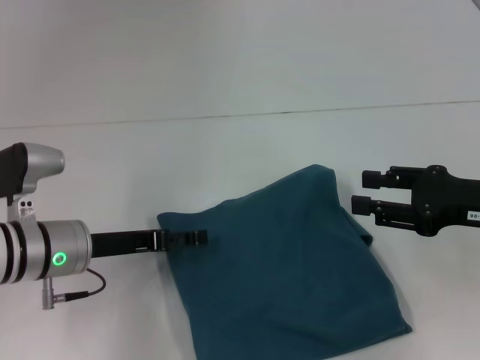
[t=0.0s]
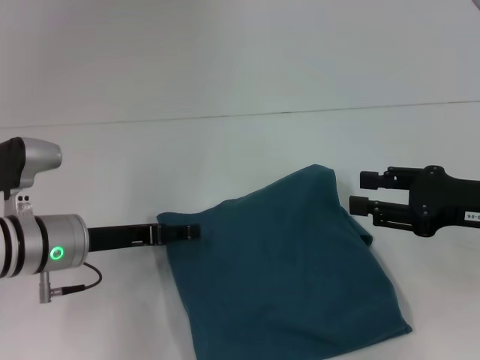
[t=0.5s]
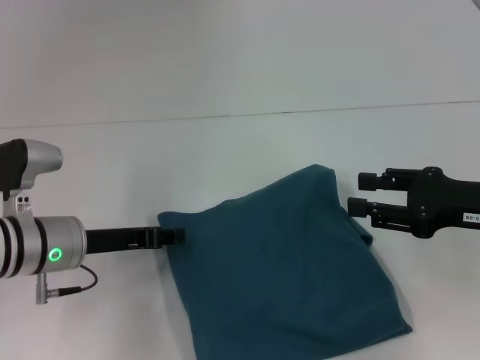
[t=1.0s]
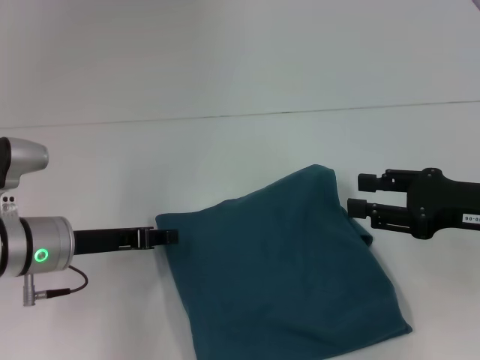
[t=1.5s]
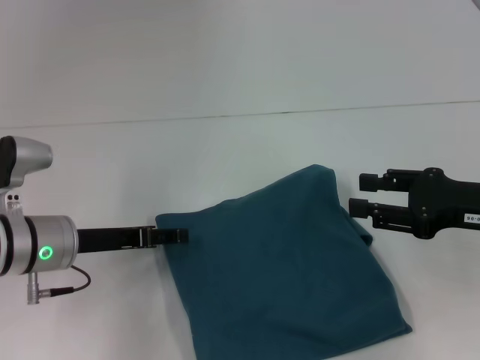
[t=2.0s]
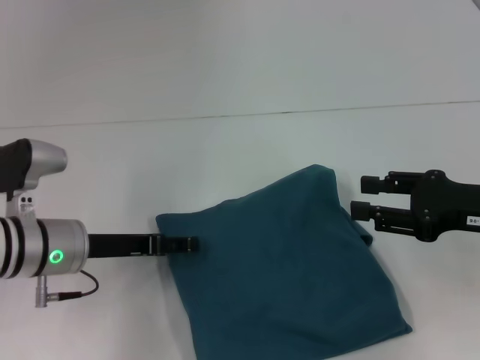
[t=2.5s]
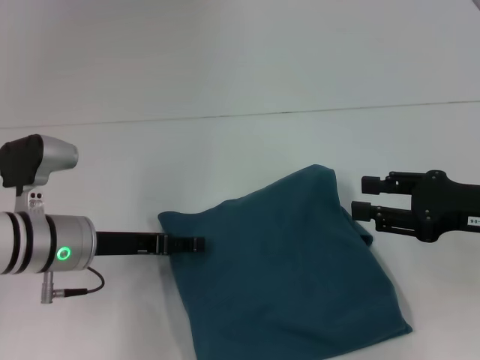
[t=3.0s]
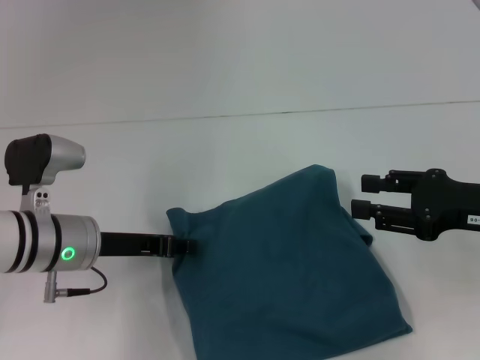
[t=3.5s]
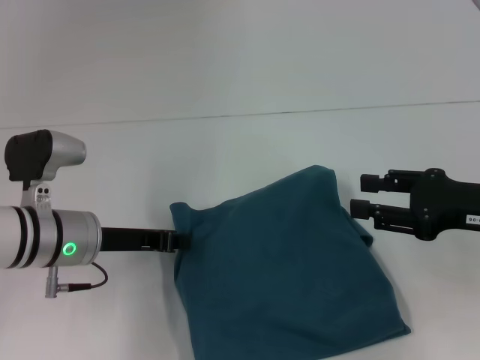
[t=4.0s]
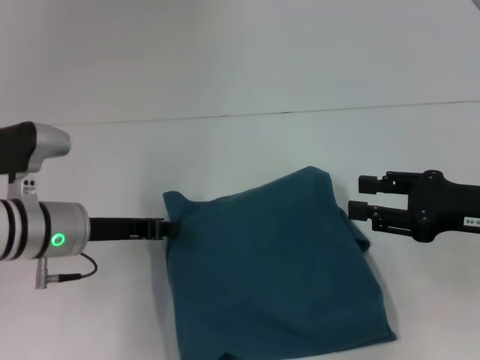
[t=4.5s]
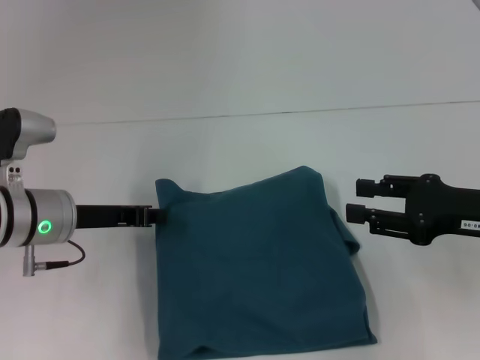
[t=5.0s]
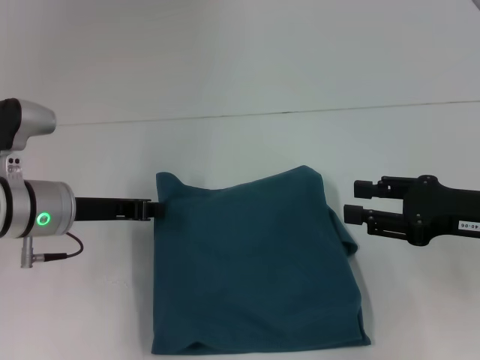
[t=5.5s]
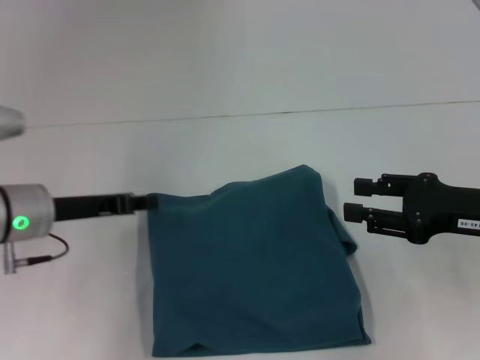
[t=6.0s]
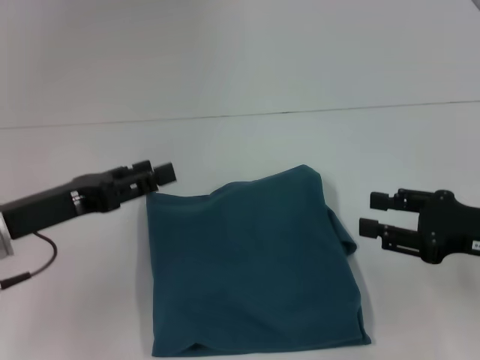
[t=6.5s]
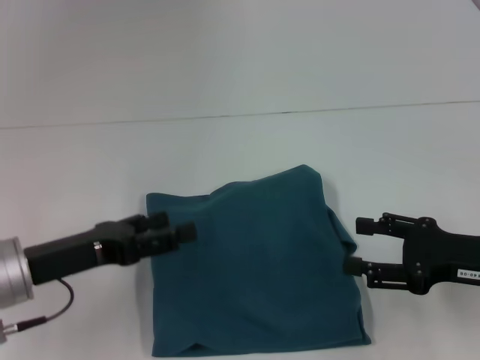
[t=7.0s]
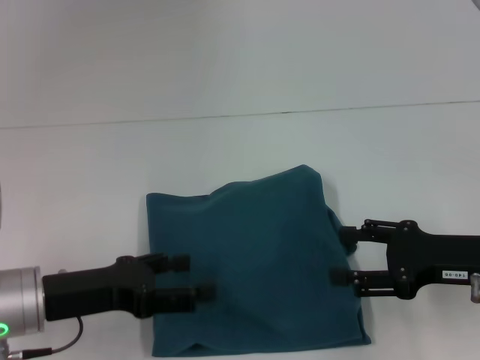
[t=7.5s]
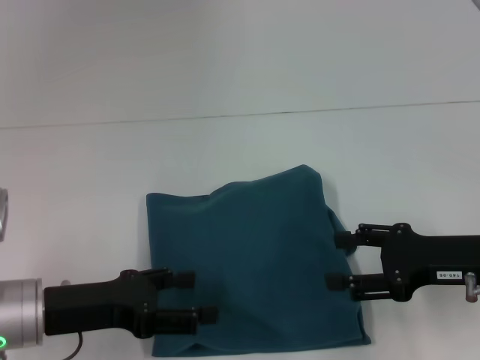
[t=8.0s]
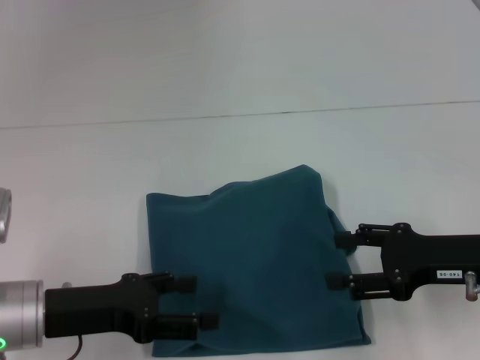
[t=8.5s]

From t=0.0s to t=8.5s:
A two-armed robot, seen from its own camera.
From t=0.0s to t=2.0s: The left gripper closes its fingers.
From t=2.0s to t=4.0s: The left gripper closes up.
From t=4.0s to t=6.5s: The left gripper moves to the left, approximately 5 cm, and opens up.
From t=6.5s to t=8.5s: The left gripper shifts by roughly 5 cm, and opens.

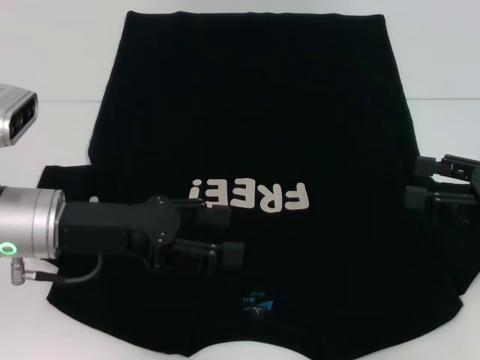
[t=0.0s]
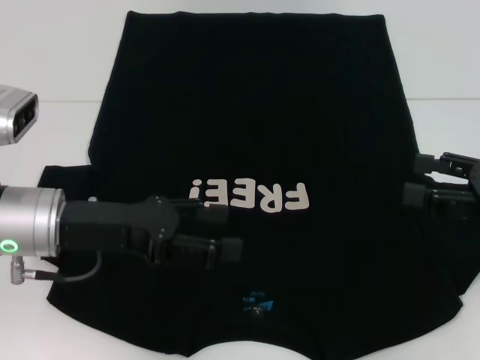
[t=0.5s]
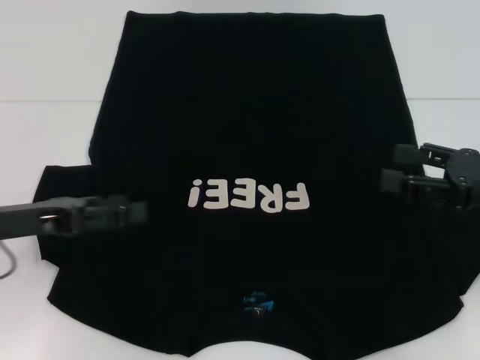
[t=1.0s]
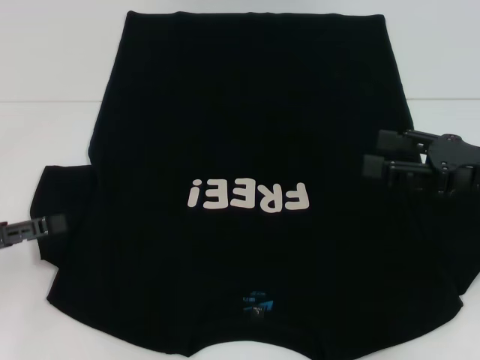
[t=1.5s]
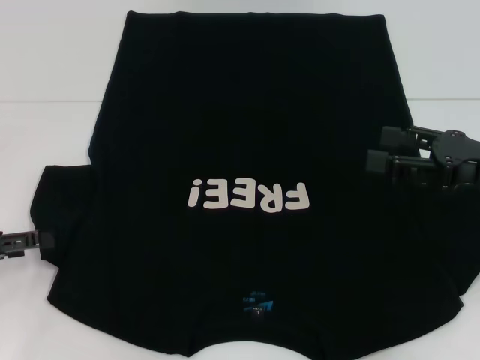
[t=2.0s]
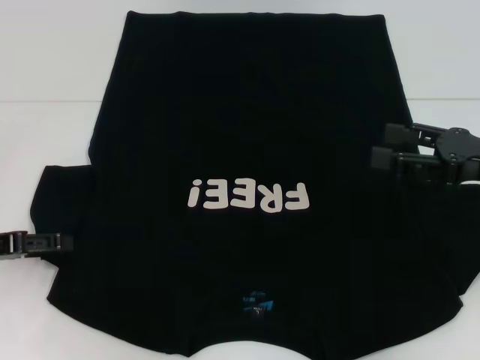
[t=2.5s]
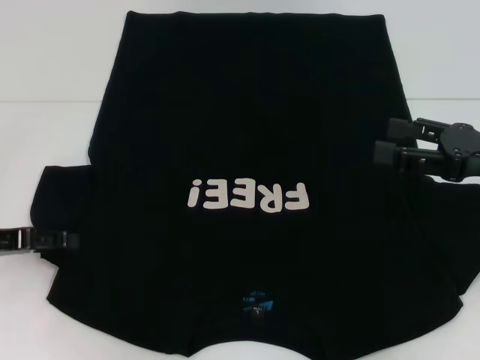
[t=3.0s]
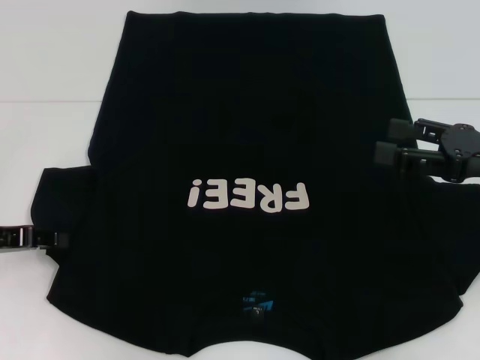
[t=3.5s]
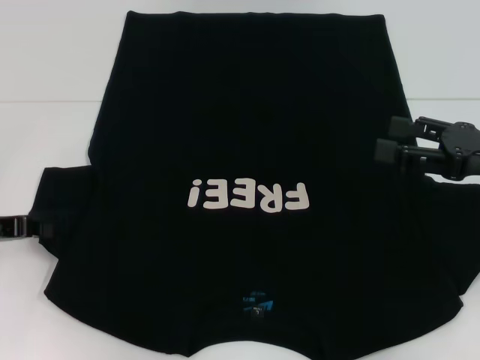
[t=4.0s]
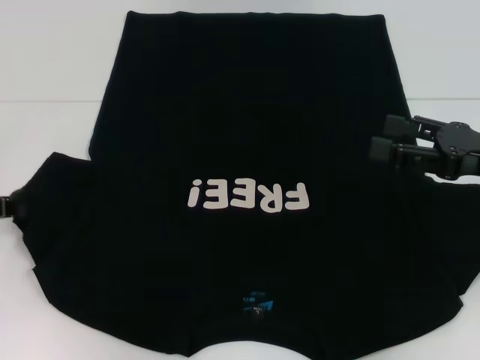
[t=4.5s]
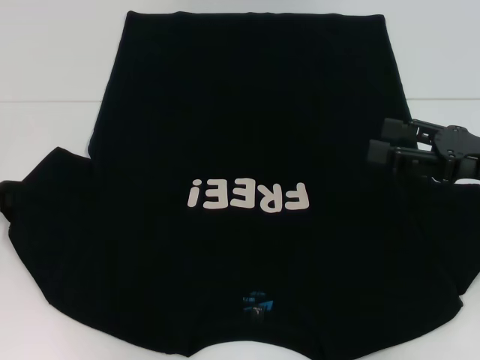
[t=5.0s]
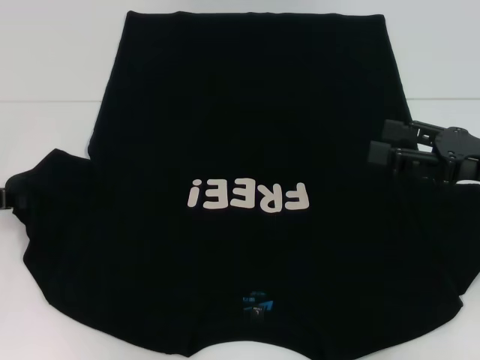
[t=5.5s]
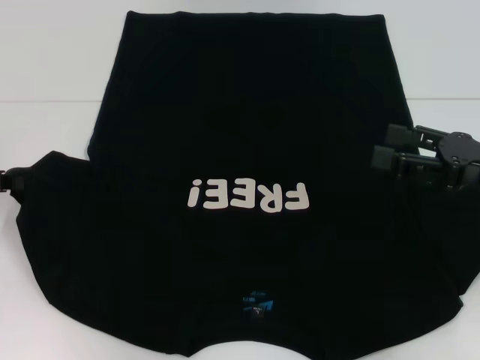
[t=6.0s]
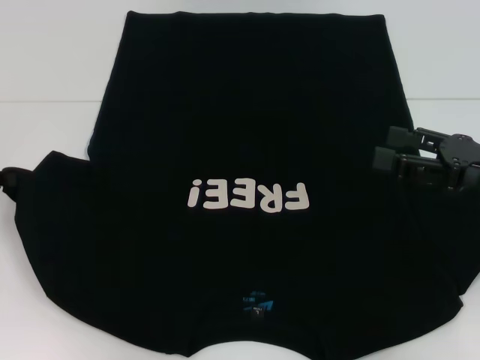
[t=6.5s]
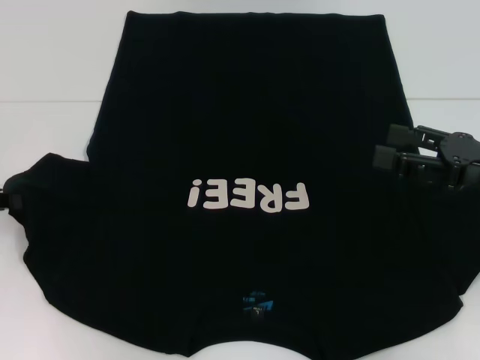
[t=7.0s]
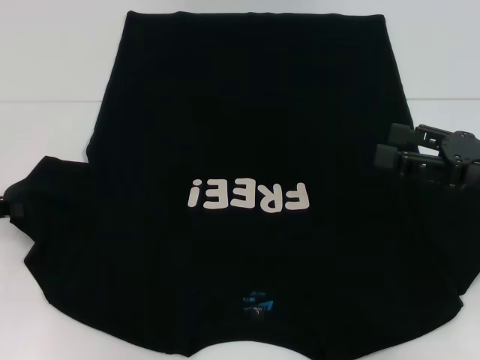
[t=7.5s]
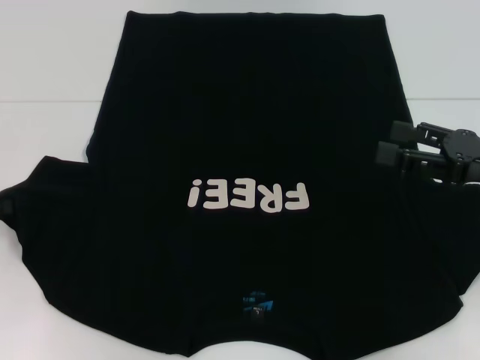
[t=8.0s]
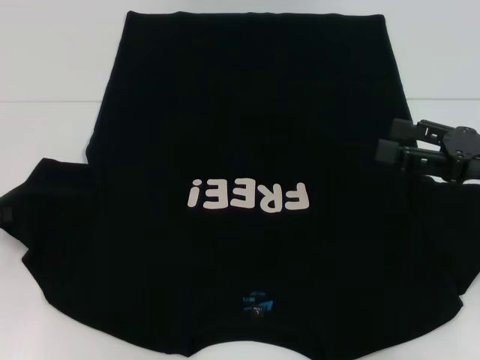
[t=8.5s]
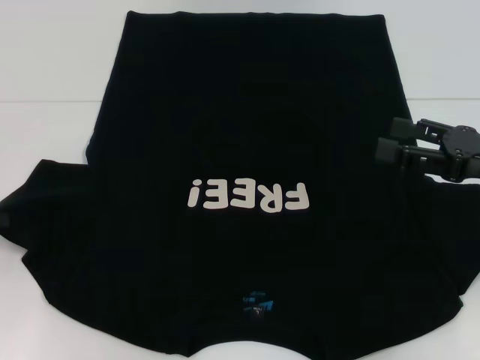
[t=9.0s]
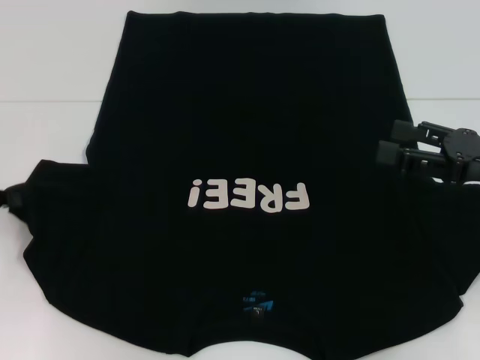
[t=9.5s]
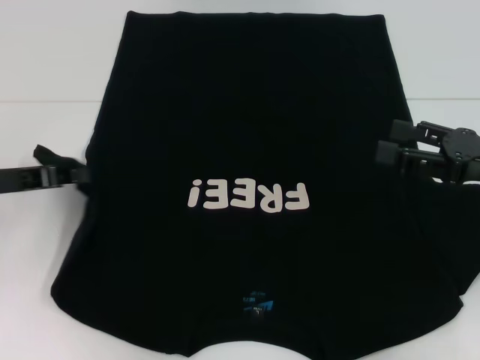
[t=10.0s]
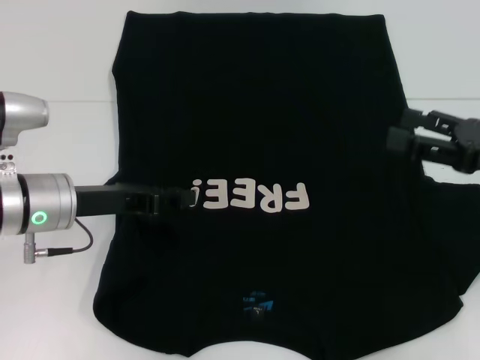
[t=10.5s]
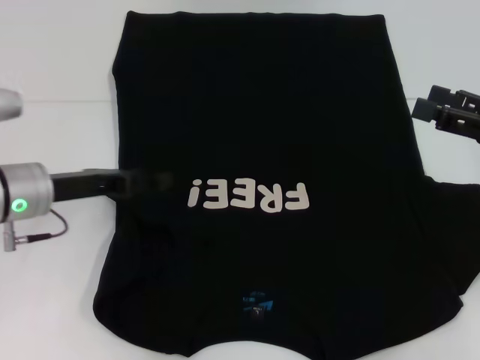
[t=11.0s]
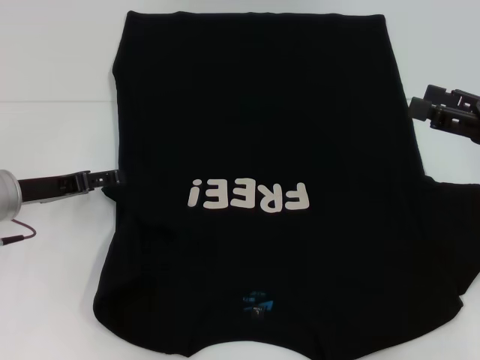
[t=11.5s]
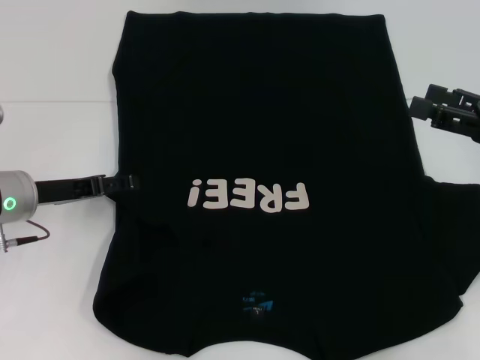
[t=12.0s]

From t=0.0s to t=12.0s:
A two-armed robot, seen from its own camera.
From t=0.0s to t=2.0s: The left gripper travels to the left by approximately 15 cm.
From t=2.0s to t=4.0s: The left gripper shifts by some 5 cm, and closes up.
From t=4.0s to t=8.0s: The grippers make only small movements.
From t=8.0s to t=10.0s: The left gripper travels to the right by roughly 5 cm.
From t=10.0s to t=12.0s: The left gripper is displaced downward by approximately 5 cm, and opens up.

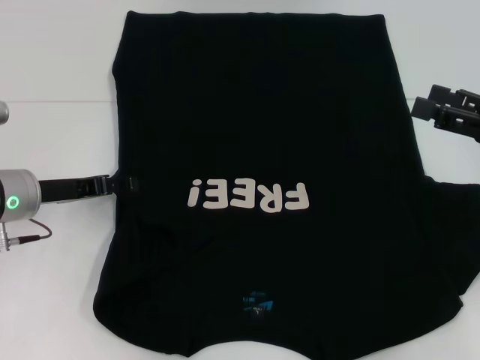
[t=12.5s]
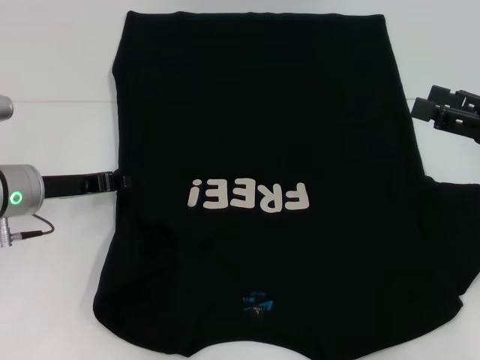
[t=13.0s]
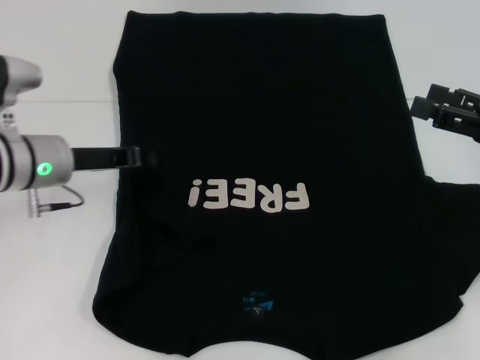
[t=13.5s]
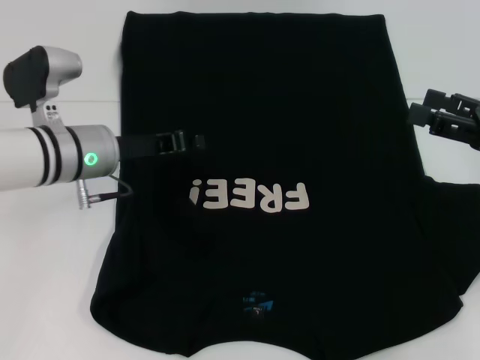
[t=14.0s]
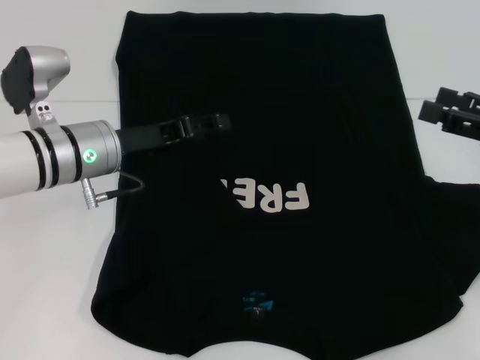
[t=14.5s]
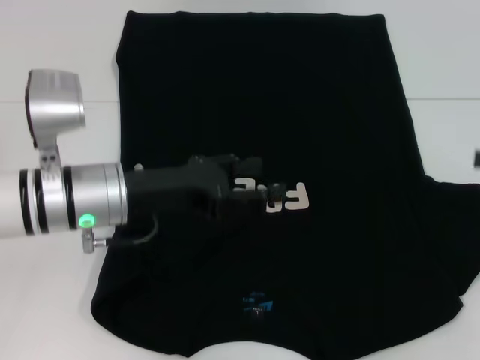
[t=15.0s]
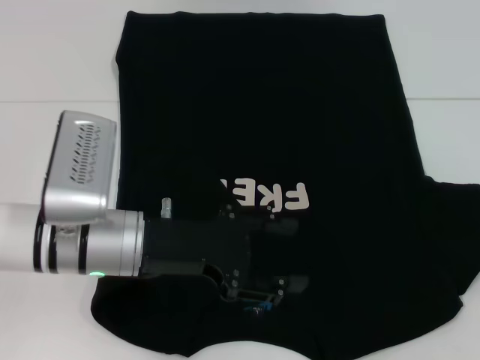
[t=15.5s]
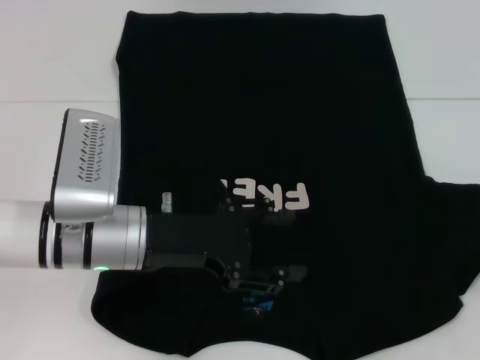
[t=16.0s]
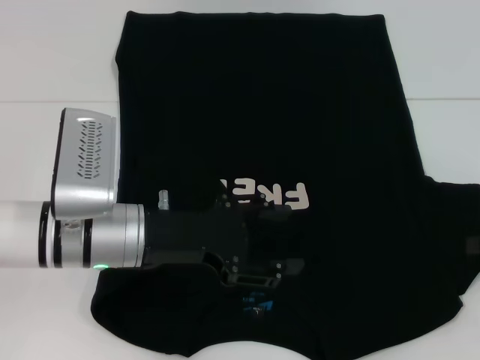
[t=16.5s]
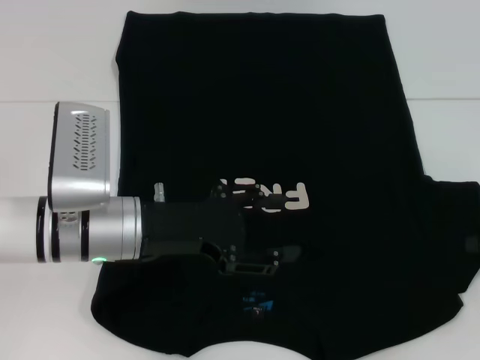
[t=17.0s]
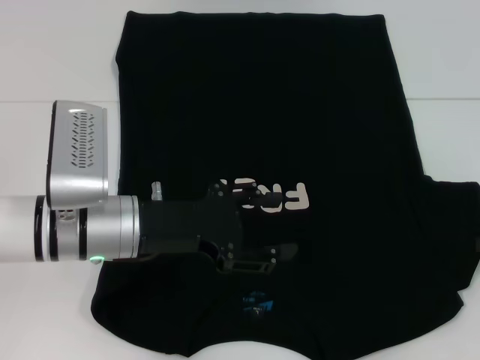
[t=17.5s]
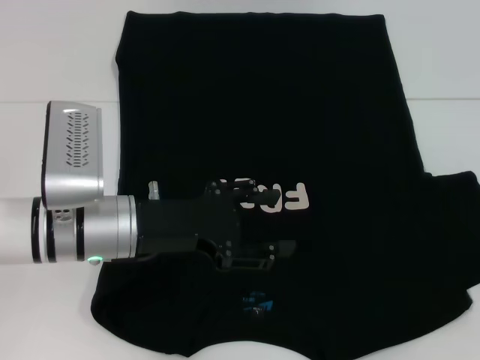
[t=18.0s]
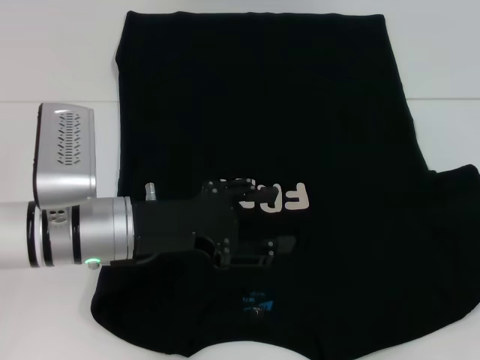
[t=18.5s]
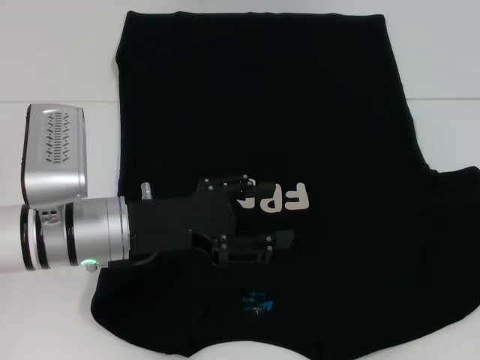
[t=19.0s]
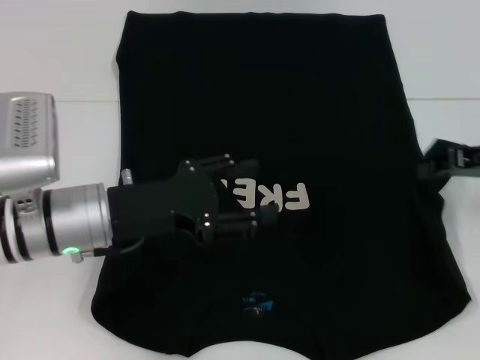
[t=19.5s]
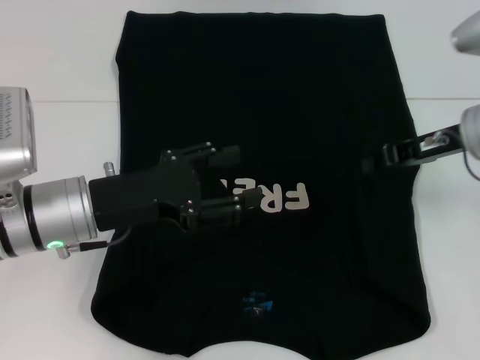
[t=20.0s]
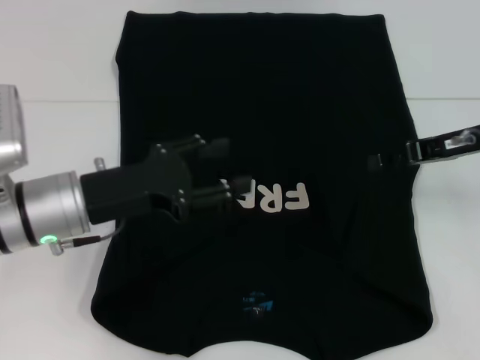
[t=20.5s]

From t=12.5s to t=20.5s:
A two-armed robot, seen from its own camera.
From t=12.5s to t=14.5s: The left gripper moves to the right, approximately 10 cm, and closes.
From t=14.5s to t=16.5s: The right gripper is displaced to the right by approximately 5 cm, while the left gripper moves backward, some 10 cm, and opens its fingers.
From t=16.5s to t=18.5s: The right gripper closes up.
From t=18.5s to t=20.5s: The right gripper is displaced to the left and forward by about 15 cm.
